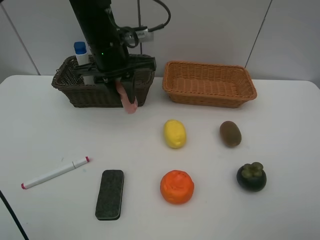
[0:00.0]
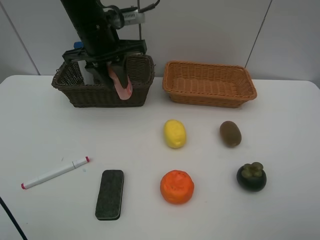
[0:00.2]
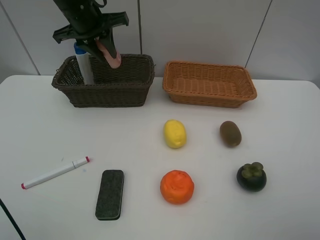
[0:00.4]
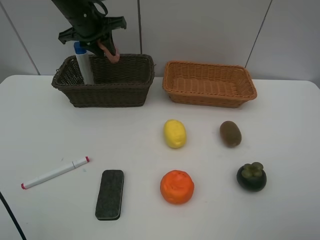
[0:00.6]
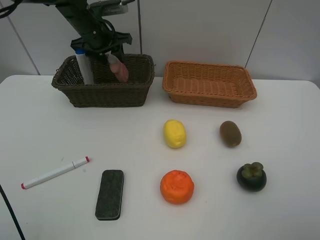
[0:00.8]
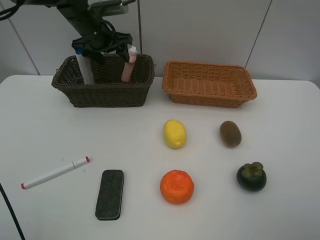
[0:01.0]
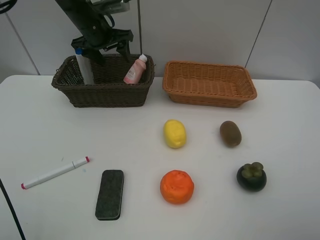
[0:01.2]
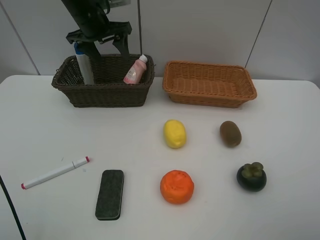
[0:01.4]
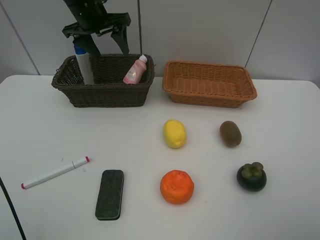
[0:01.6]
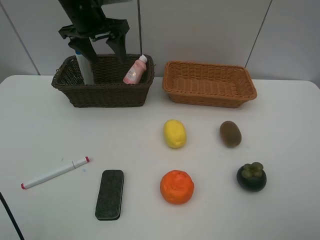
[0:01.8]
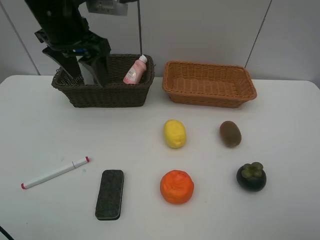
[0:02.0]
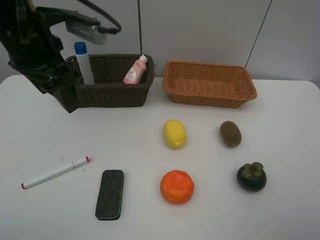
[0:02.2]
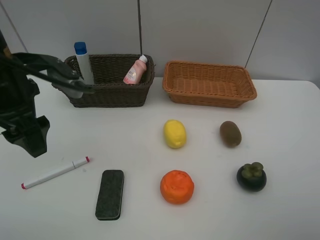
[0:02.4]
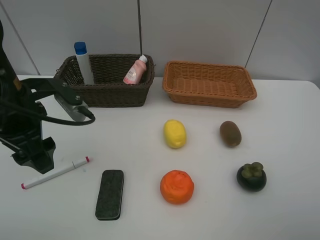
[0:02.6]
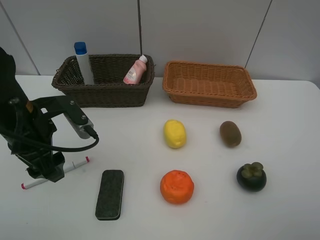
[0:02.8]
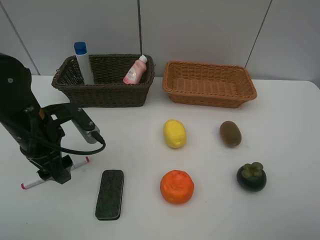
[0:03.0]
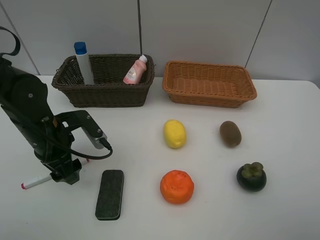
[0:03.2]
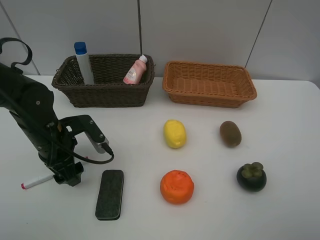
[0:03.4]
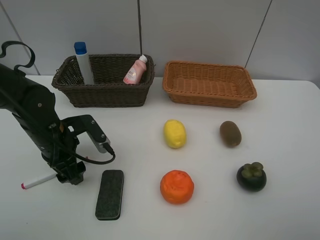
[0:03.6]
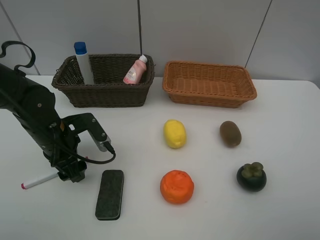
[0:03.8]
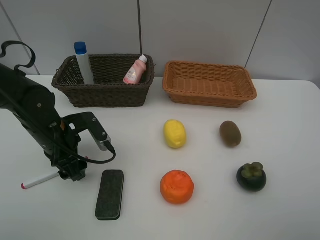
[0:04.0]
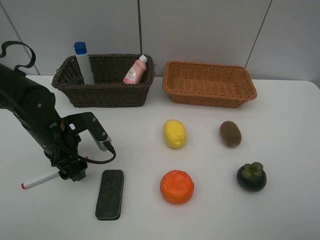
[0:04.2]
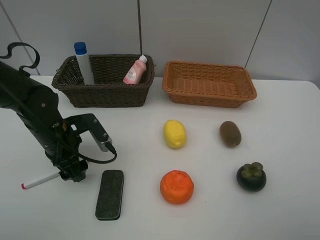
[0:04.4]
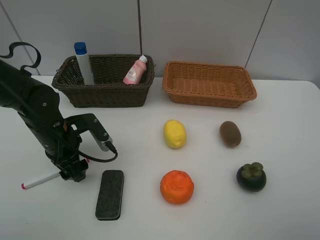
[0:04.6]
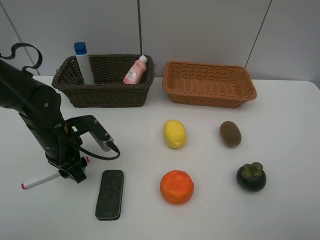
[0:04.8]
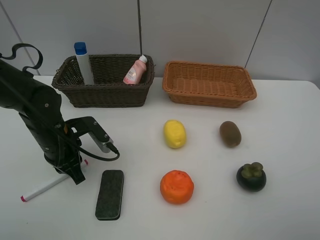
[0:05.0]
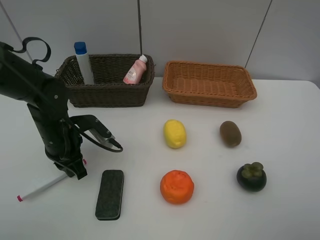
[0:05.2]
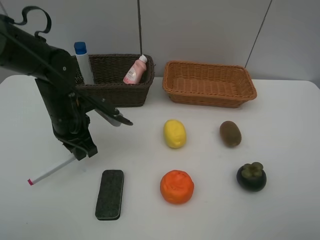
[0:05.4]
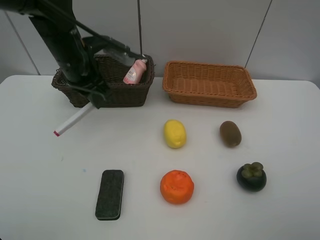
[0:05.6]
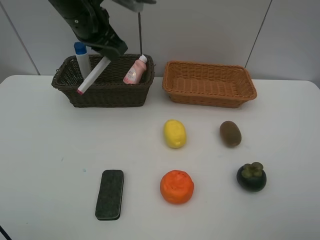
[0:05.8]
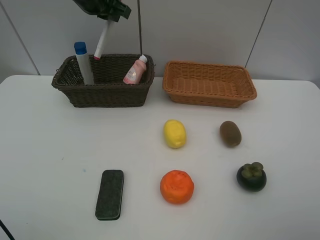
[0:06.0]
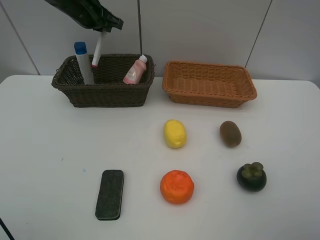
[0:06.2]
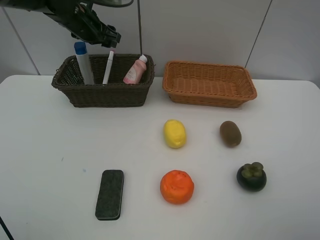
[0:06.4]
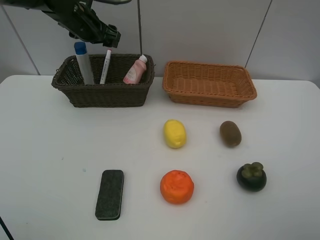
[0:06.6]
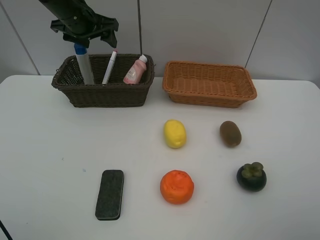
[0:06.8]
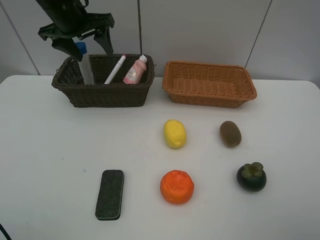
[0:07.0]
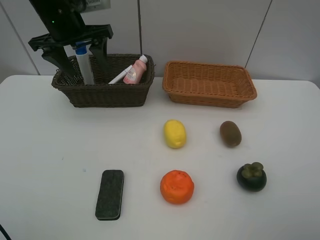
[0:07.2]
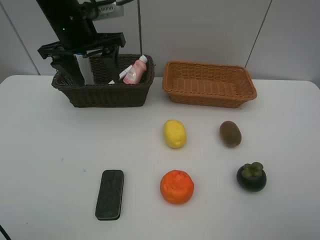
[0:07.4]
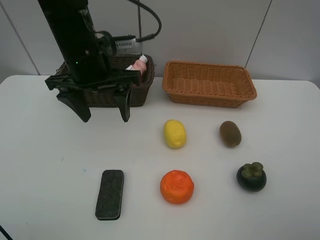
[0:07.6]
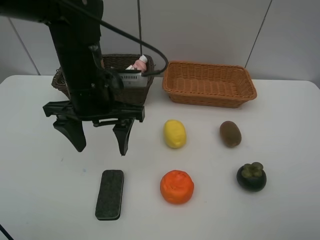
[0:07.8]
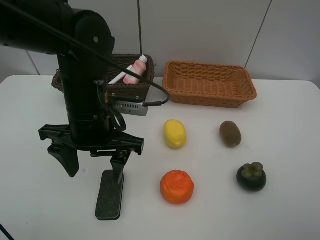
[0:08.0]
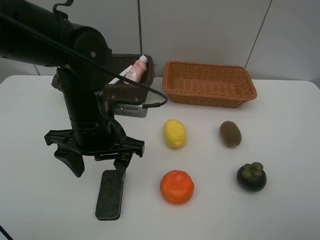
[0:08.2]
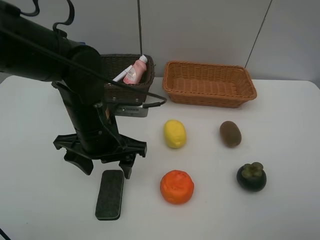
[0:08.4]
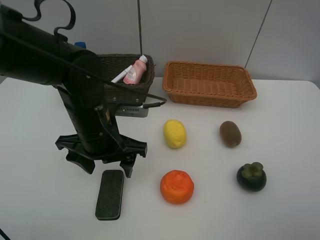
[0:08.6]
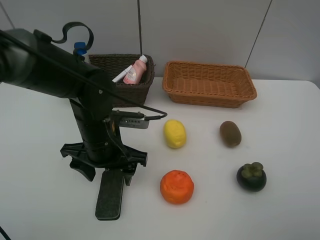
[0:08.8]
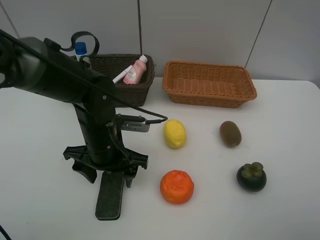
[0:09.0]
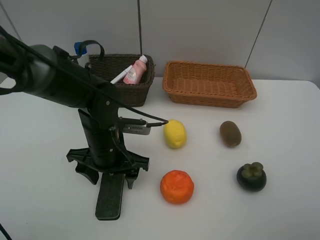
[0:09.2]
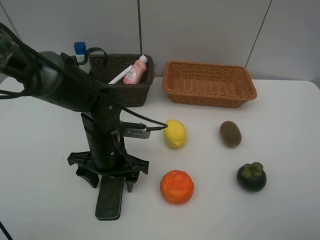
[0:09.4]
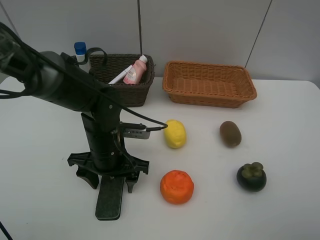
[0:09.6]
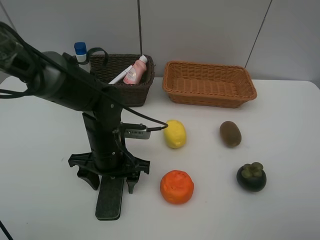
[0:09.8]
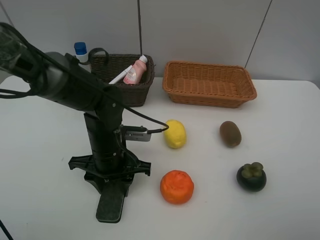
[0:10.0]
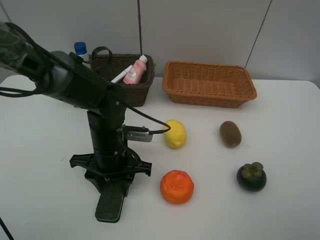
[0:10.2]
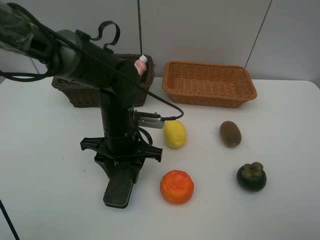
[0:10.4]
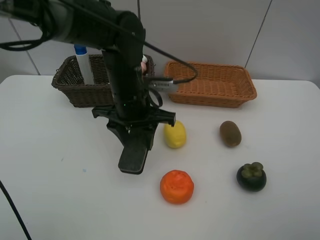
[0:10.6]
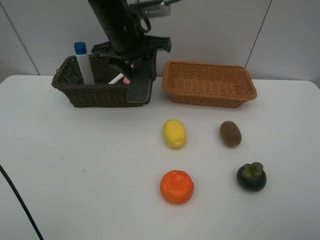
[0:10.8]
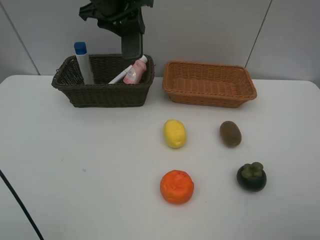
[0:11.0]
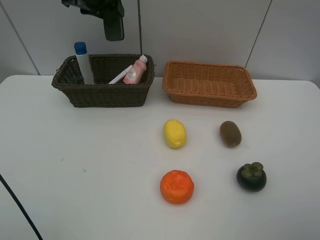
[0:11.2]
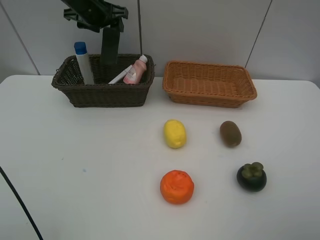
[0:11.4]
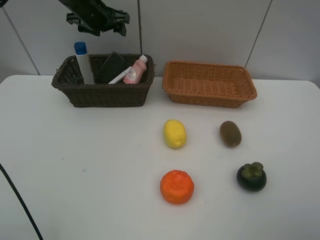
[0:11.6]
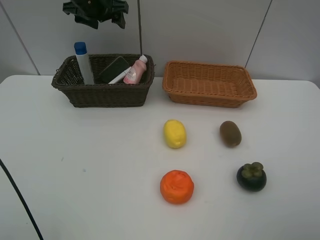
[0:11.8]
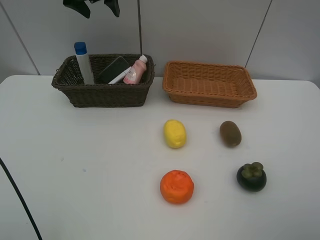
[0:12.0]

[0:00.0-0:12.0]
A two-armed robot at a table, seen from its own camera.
Task of the whole recording: Place multiple objects separately in different baskets.
Step, 0:00.0 to 0:01.2: Place the laundry detergent in the dark basket with left gripper.
Step, 0:01.4 to 0:05.4: Pick up the red marker with left gripper.
Step, 0:05.6 to 0:06.6: Place the red marker in the dark basket with left gripper.
Step, 0:06.8 to 0:10.4: Pick up blackboard eraser with left gripper.
Step, 0:10.6 to 0:11.8: Place the blackboard eraser in the dark basket with left gripper.
0:00.0 to 0:01.6: The left gripper shifts roughly 10 cm forward and to the left, and opens its fingers.
0:01.6 to 0:03.0: The left gripper goes some 25 cm backward and downward.
0:03.0 to 0:04.4: The left gripper heads downward, covering roughly 5 cm.
0:04.4 to 0:06.0: The left gripper goes roughly 30 cm upward and forward, and closes up.
0:06.0 to 0:07.6: The left gripper shifts some 15 cm backward and downward, and opens its fingers.
0:07.6 to 0:09.0: The left gripper goes some 15 cm downward and backward.
0:09.0 to 0:10.4: The left gripper closes.
0:10.4 to 0:12.0: The left gripper shifts approximately 30 cm forward, upward and to the left, and opens its fingers.

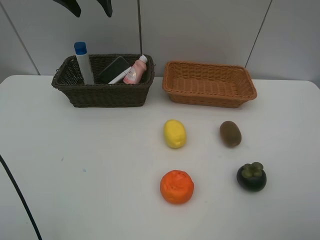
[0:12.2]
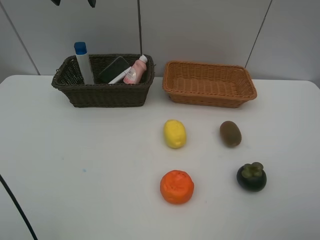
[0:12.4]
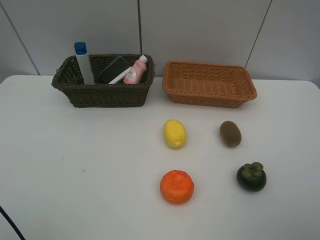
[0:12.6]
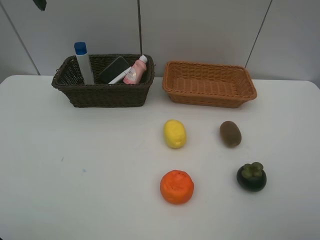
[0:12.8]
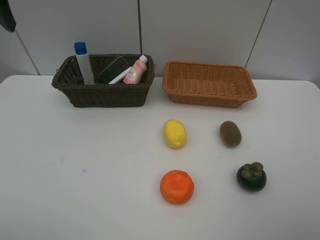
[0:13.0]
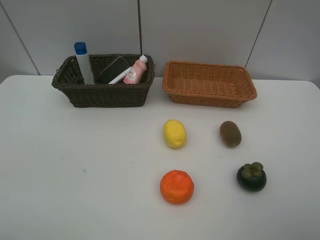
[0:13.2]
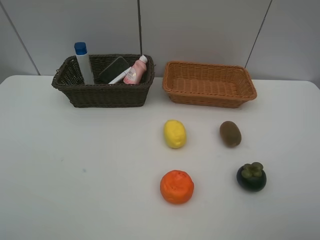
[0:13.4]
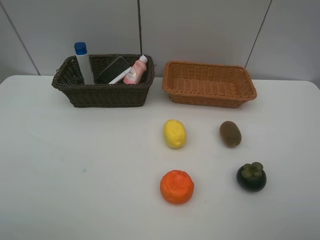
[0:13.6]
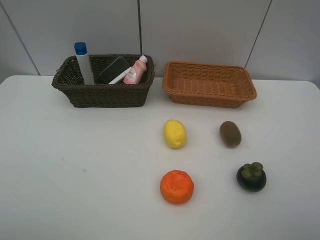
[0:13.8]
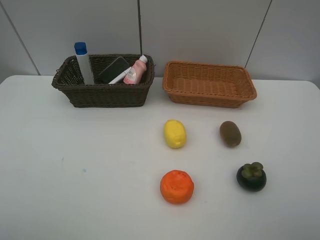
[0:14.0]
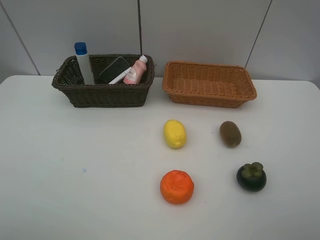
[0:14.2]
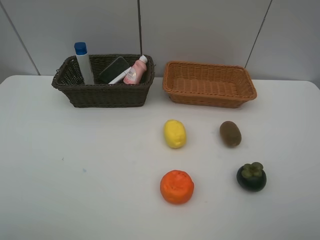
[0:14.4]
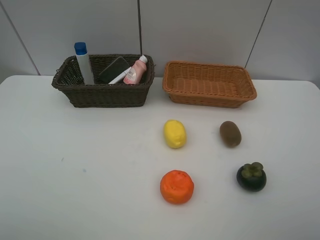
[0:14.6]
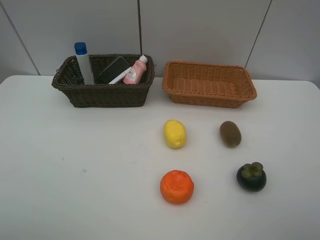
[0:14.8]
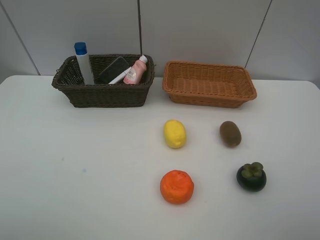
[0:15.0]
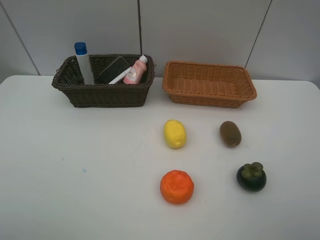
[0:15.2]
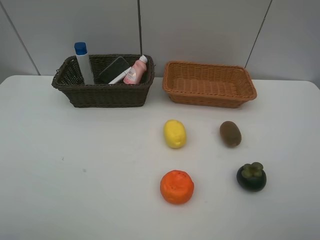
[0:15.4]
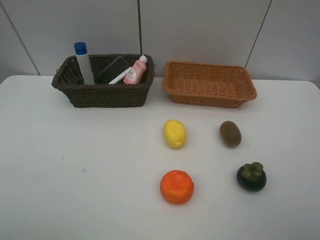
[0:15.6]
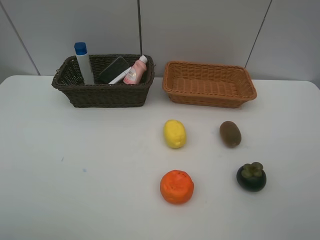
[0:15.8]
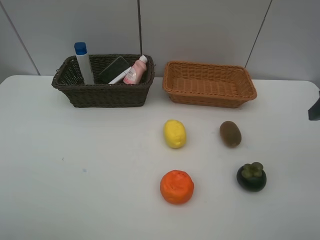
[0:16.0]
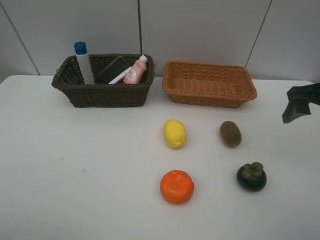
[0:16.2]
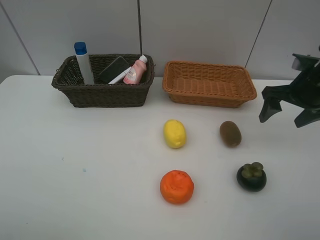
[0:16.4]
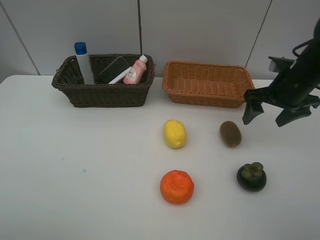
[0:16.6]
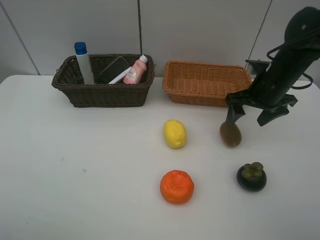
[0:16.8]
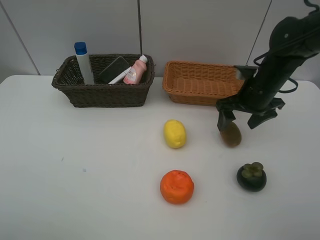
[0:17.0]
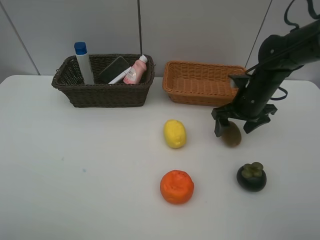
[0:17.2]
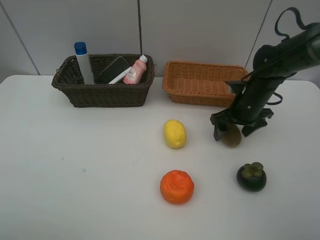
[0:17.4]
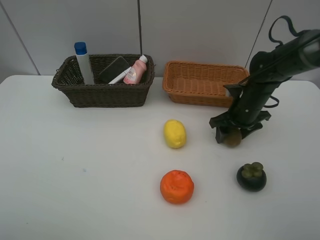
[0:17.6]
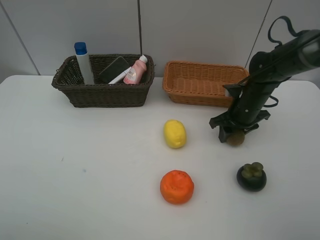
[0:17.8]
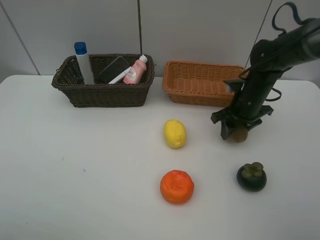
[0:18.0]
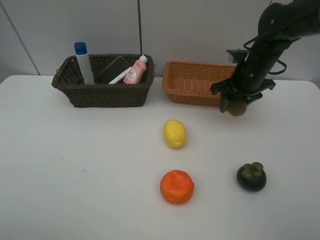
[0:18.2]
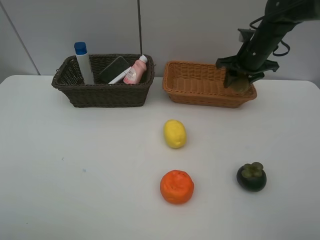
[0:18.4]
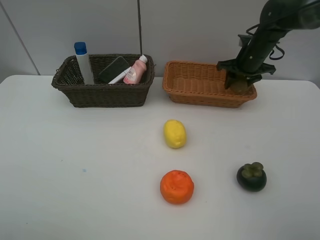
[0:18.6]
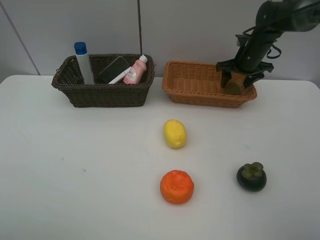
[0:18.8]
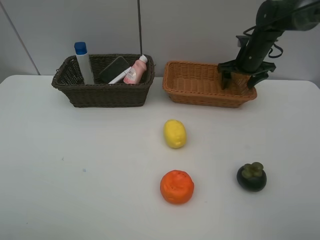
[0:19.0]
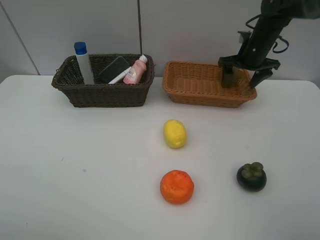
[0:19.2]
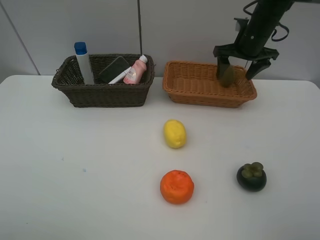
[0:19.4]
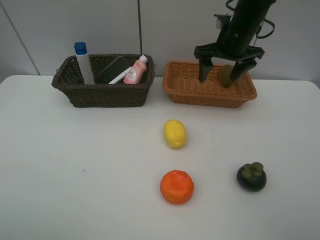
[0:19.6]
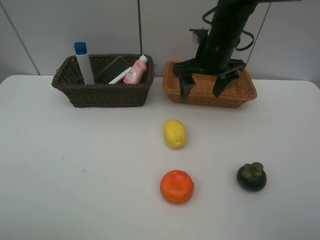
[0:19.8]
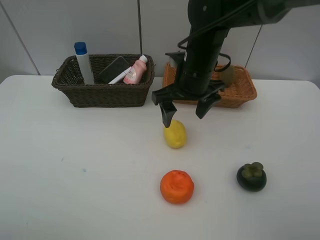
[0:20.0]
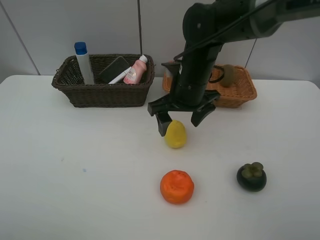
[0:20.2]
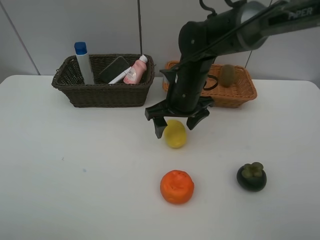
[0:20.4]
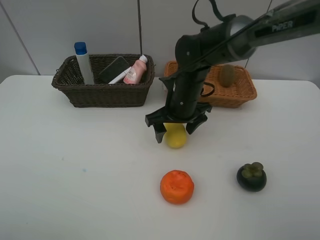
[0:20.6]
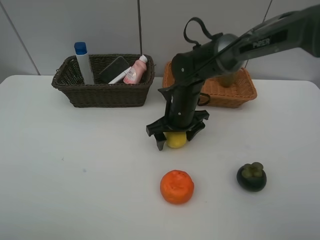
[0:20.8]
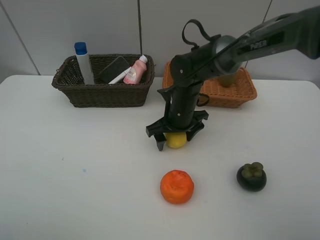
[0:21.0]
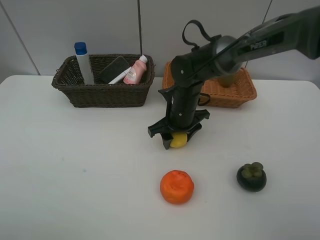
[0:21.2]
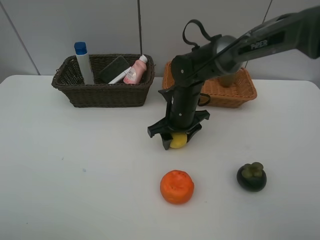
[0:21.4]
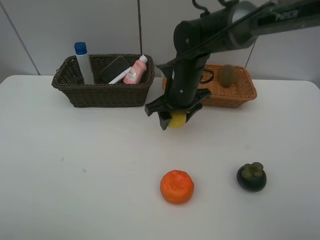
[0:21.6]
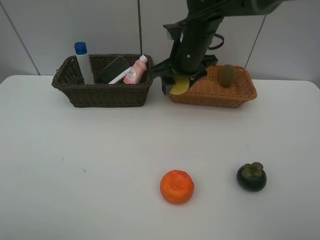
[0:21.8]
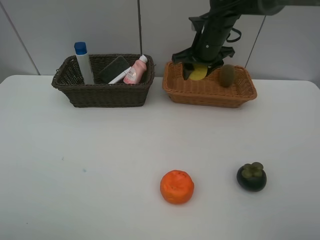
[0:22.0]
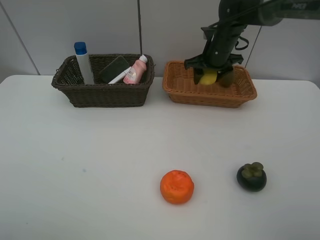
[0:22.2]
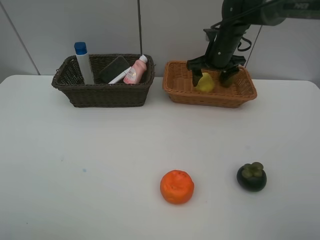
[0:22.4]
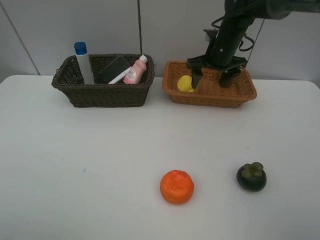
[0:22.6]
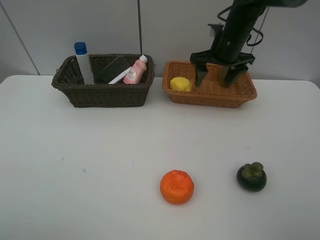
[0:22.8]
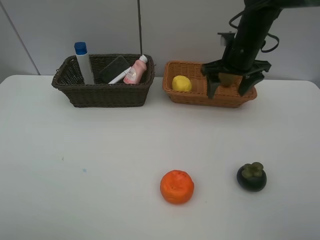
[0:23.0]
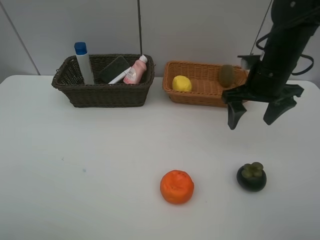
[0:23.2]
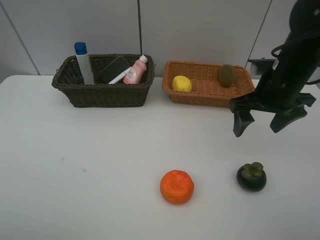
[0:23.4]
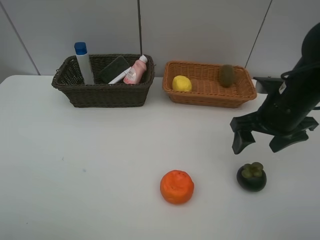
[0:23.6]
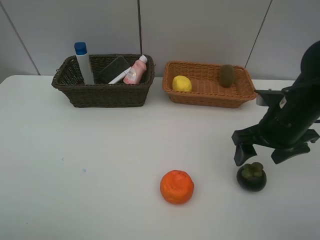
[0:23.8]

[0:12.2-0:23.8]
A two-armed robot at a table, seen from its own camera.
Task of the whole recording: Place multiple objects separately in different baskets.
Step, 0:12.2 to 0:18.0: Pick up kiwi with right gripper.
Step, 0:18.2 to 0:19.2: Place the kiwi in the light basket with right gripper.
Step, 0:19.4 to 0:21.4: Pick up the lemon with right gripper.
Step, 0:21.6 to 0:22.6: Place the lemon in the light basket with right gripper.
0:12.2 to 0:13.6: The left gripper moves backward, about 40 cm.
0:15.0 to 0:16.6: The right gripper heads forward, covering about 30 cm.
0:16.6 to 0:18.0: The right gripper is displaced downward and to the left by roughly 10 cm, and closes.
0:18.0 to 0:19.4: The right gripper shifts about 15 cm upward and forward, and opens its fingers.
0:19.4 to 0:21.0: The right gripper travels to the left, downward and backward by approximately 25 cm.
0:21.0 to 0:22.4: The right gripper goes roughly 20 cm forward, to the right and upward, and closes, then opens again.
0:22.4 to 0:23.8: The right gripper moves backward, roughly 25 cm.
